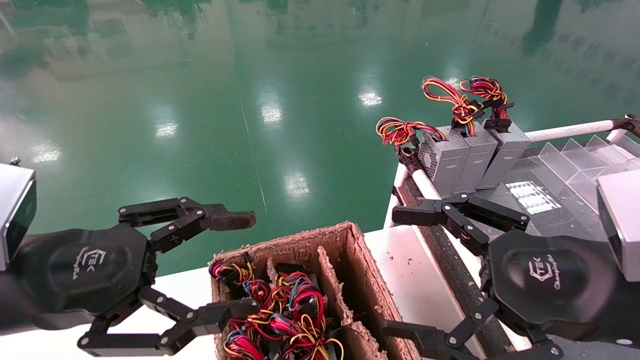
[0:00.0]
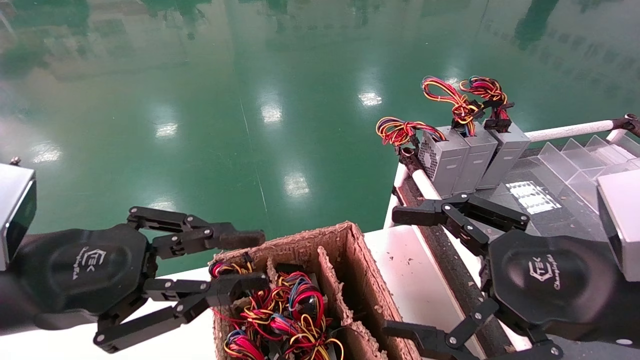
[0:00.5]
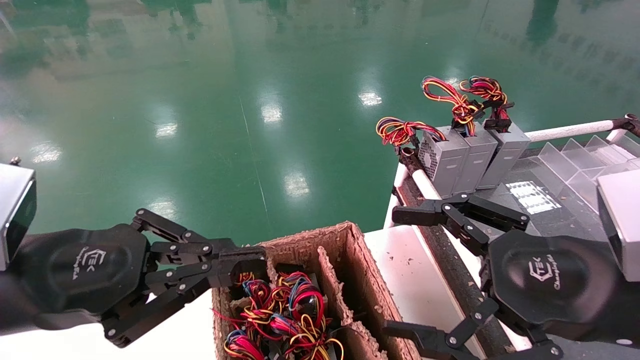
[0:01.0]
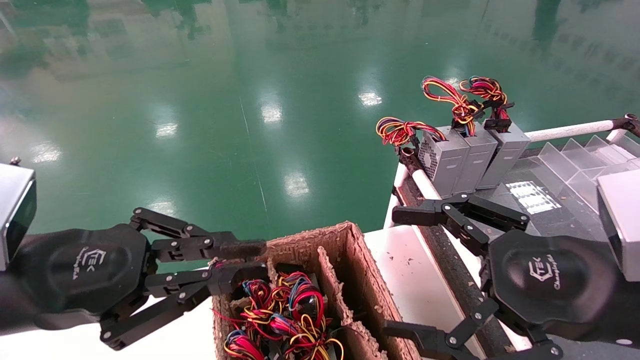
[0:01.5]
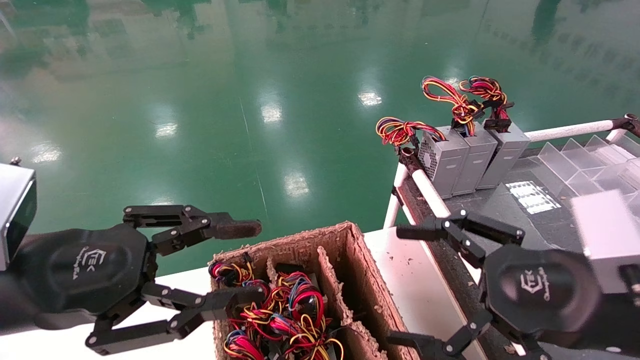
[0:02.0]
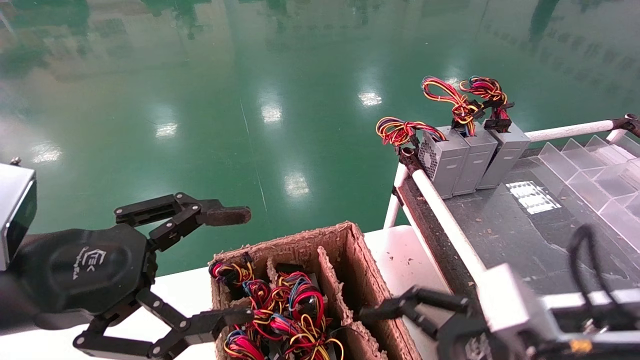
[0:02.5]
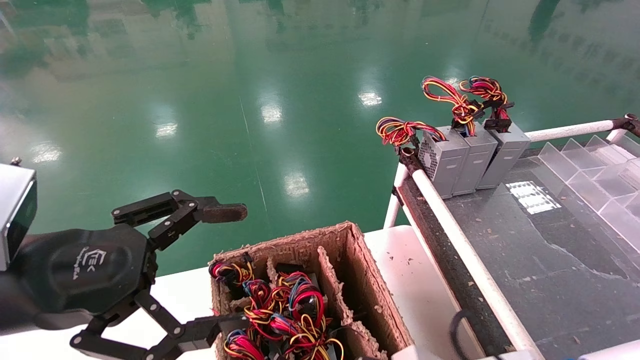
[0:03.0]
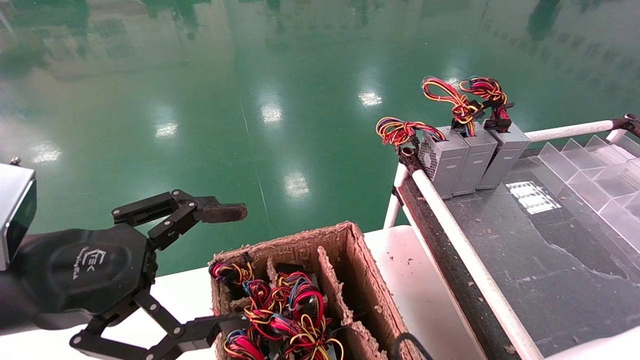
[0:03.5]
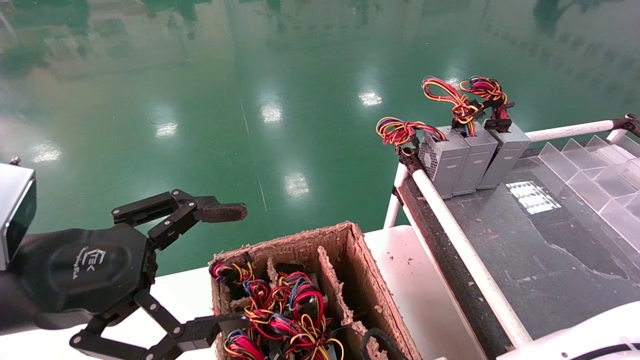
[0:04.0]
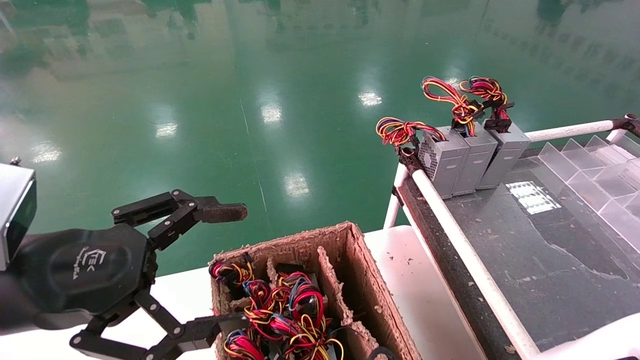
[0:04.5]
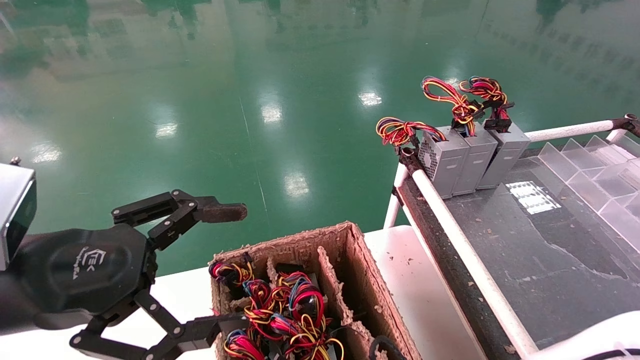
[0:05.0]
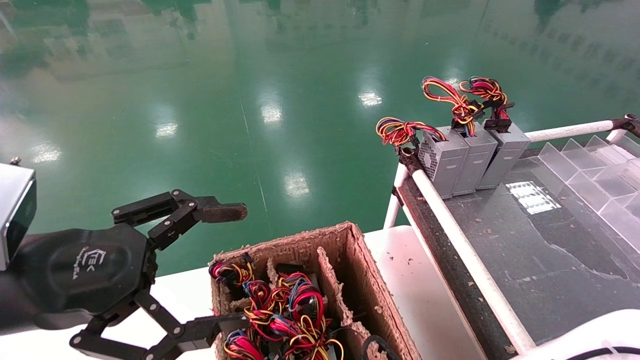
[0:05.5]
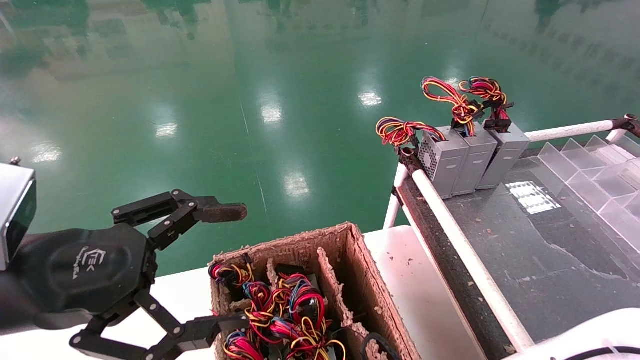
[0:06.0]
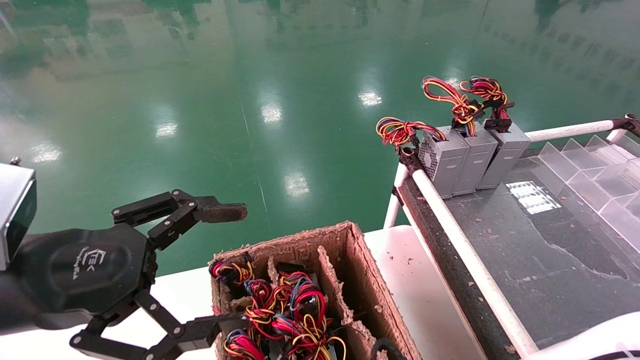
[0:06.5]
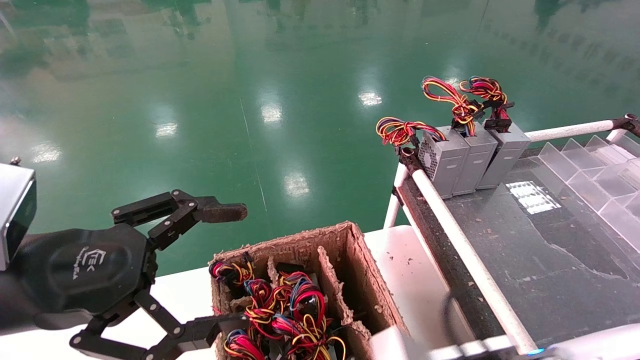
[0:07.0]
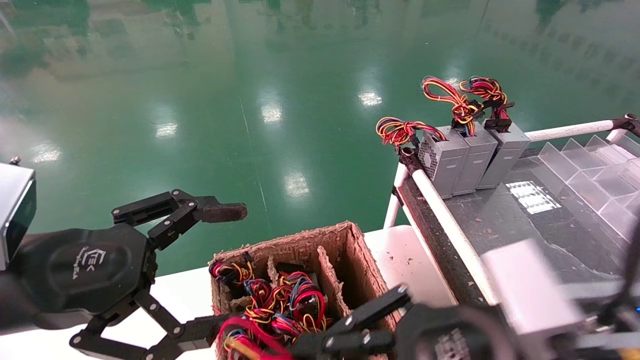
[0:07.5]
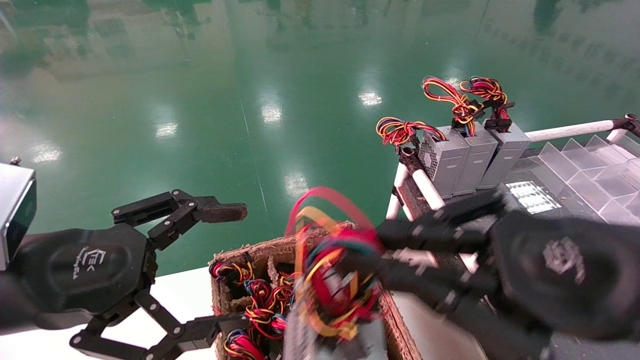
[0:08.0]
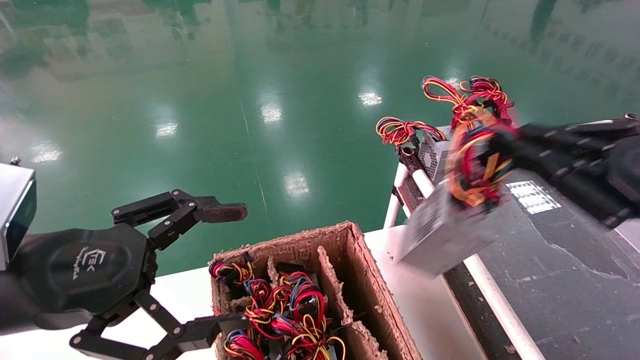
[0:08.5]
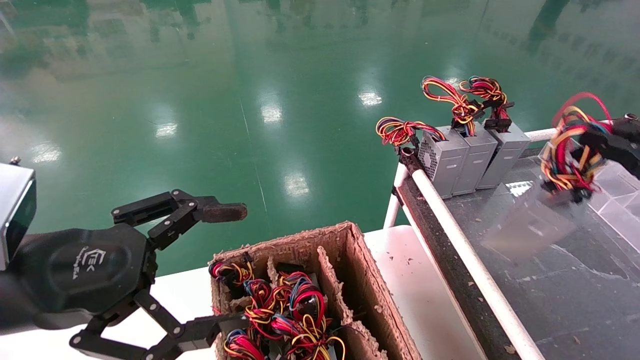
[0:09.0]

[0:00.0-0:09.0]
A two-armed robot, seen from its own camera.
Step, 0:01.0 to 0:06.5: Grab and lift the power supply from the large box.
0:00.0 to 0:02.0: The left gripper closes up.
0:02.0 to 0:04.5: The right gripper moves downward and to the left, roughly 20 cm. The left gripper opens up.
0:04.5 to 0:07.0: The right gripper goes roughly 5 cm upward, and closes up.
0:07.0 to 0:09.0: The right gripper is displaced to the right and upward by some 35 cm.

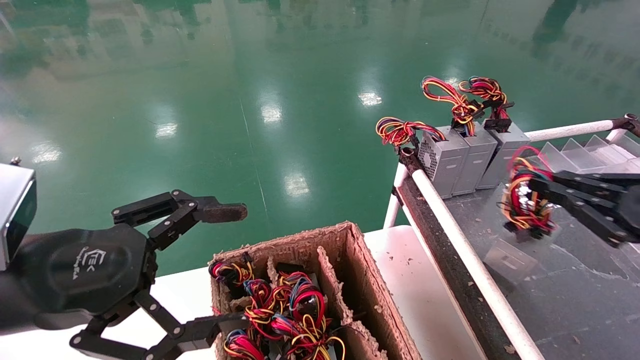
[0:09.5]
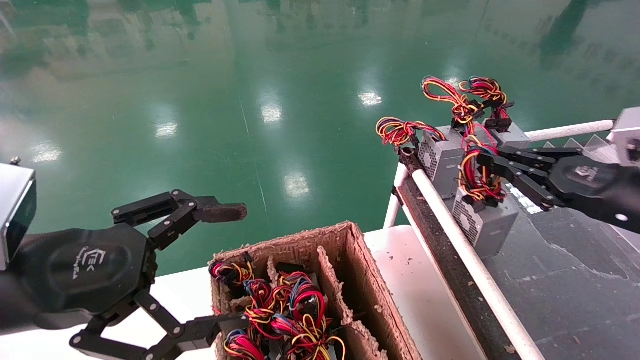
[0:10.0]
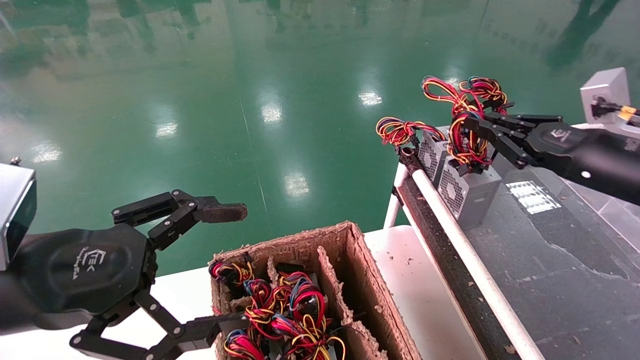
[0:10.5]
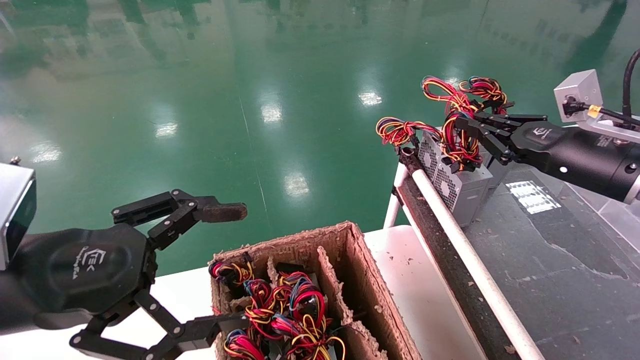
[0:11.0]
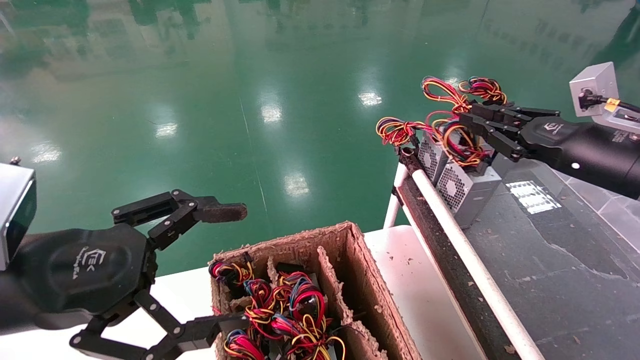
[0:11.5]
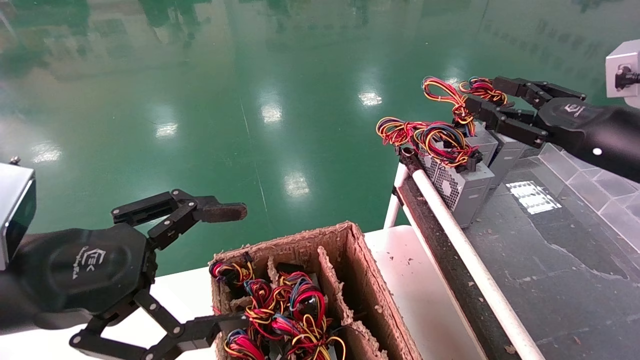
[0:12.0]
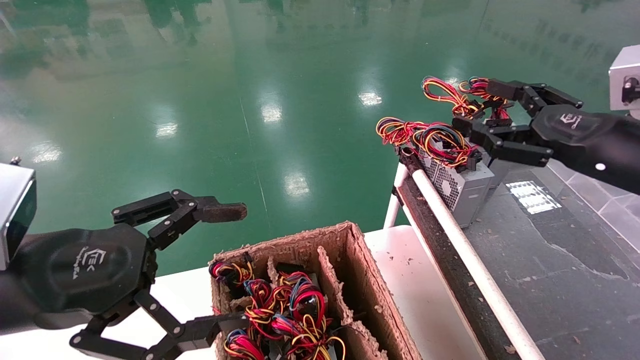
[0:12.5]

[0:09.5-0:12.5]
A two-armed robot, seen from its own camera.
0:09.5 to 0:11.0: The right gripper goes approximately 15 cm forward and to the left.
0:11.0 to 0:12.5: The right gripper shifts by about 5 cm, and opens.

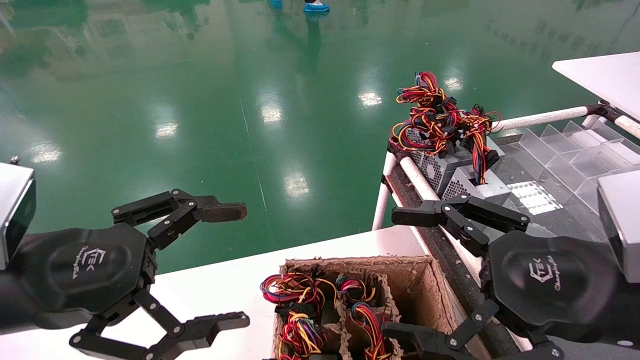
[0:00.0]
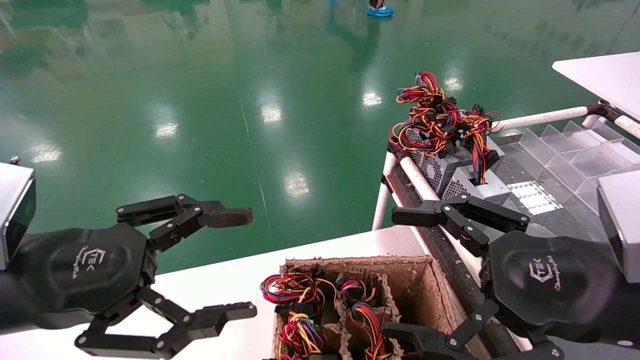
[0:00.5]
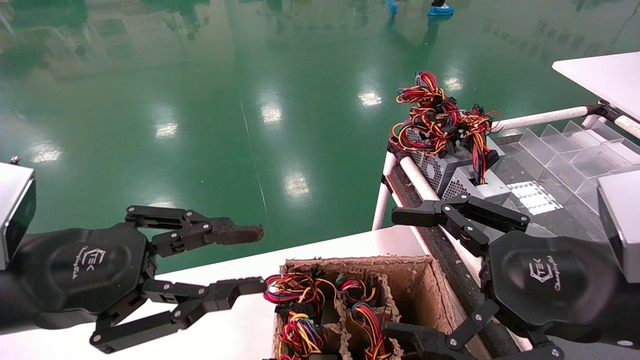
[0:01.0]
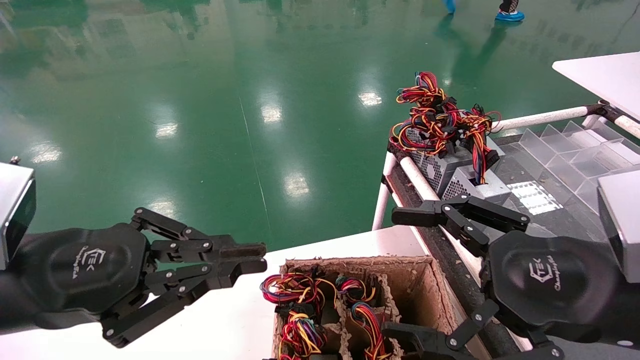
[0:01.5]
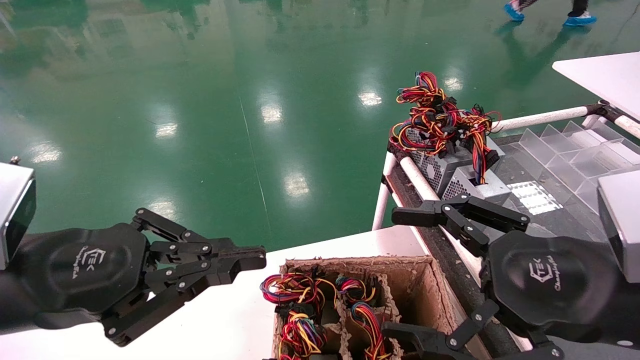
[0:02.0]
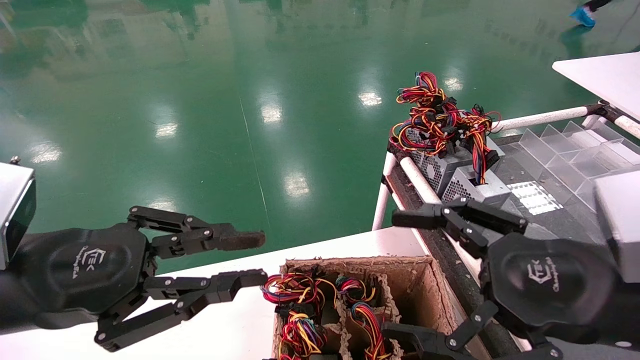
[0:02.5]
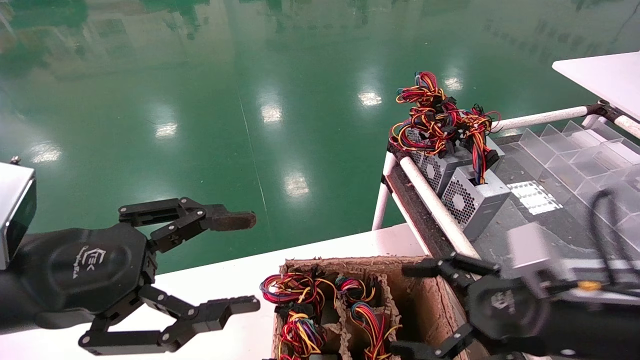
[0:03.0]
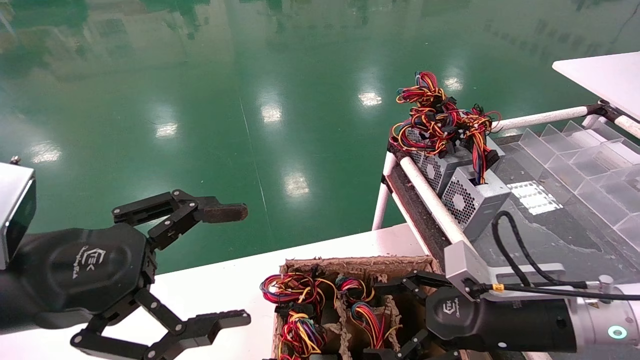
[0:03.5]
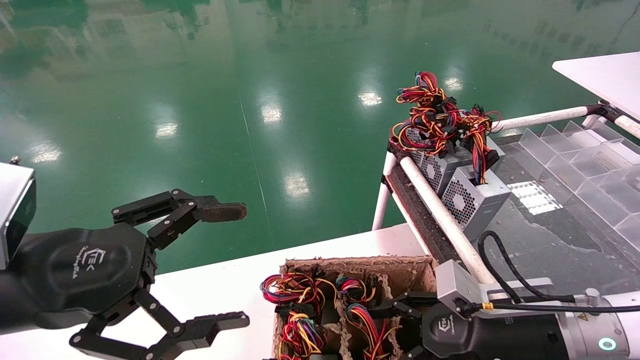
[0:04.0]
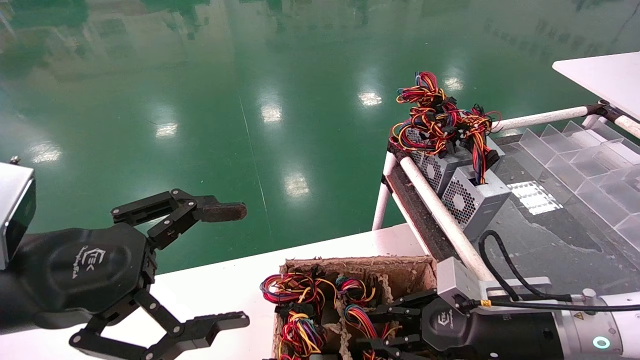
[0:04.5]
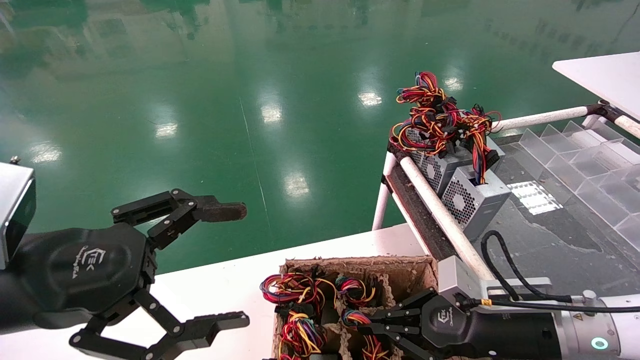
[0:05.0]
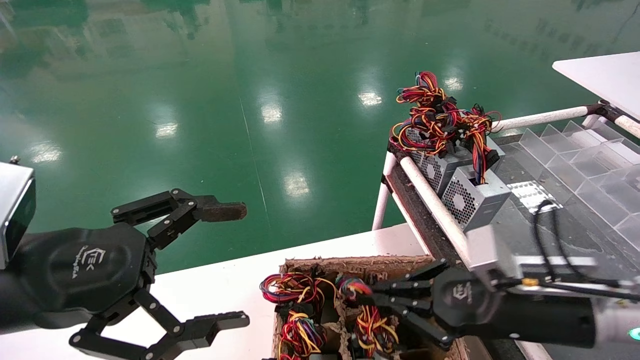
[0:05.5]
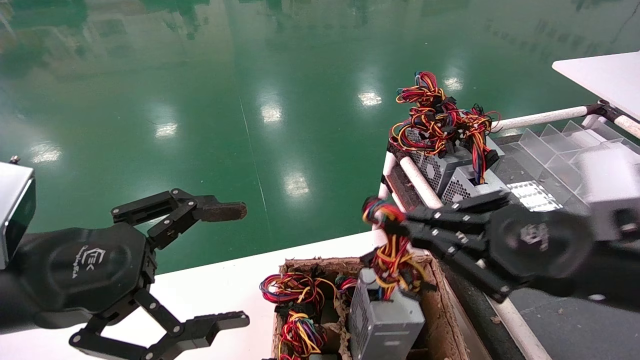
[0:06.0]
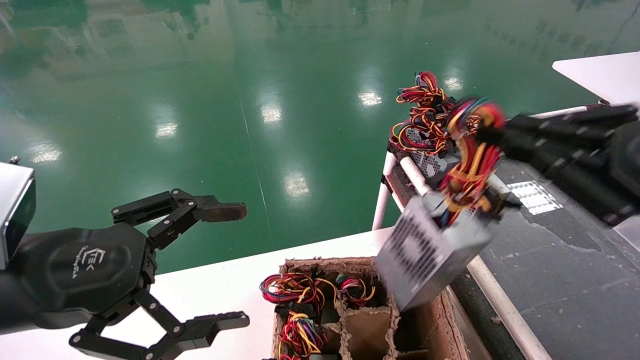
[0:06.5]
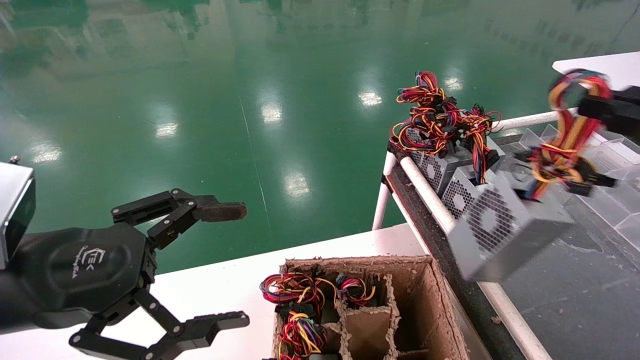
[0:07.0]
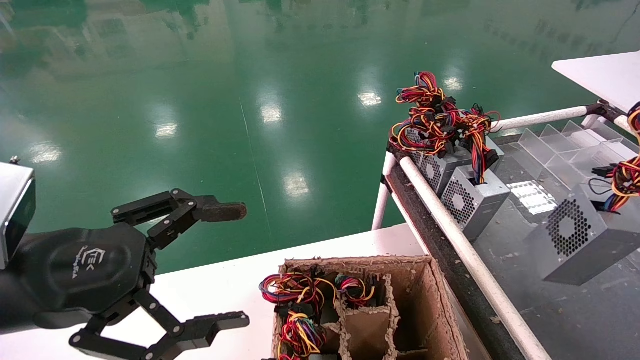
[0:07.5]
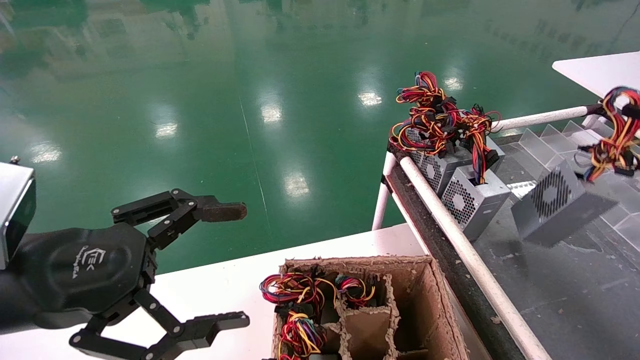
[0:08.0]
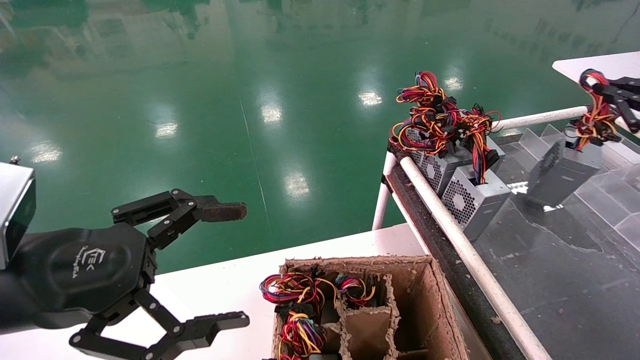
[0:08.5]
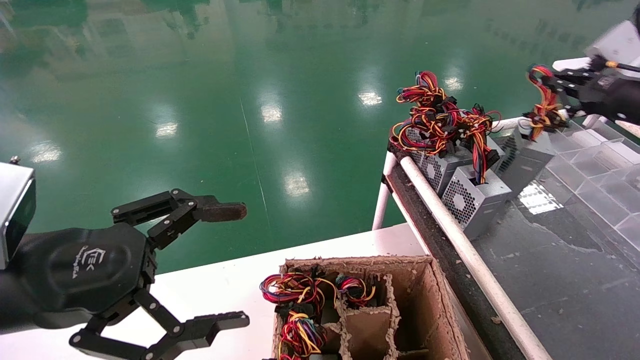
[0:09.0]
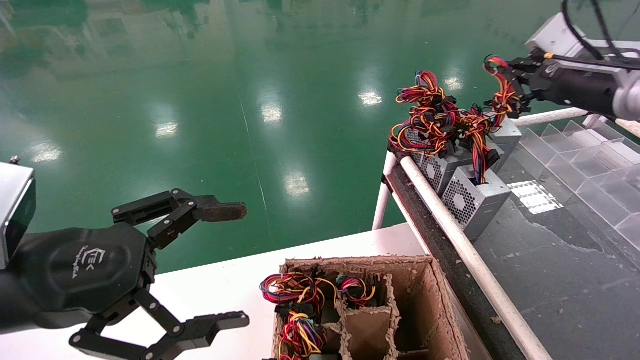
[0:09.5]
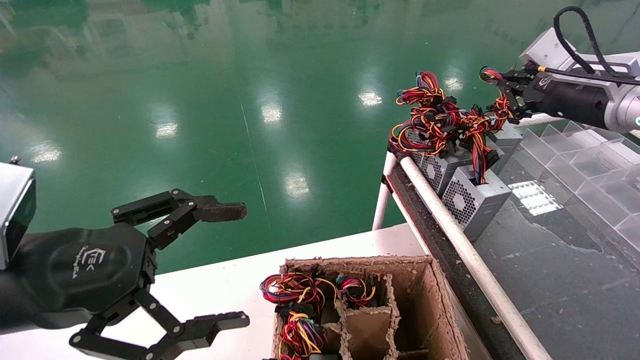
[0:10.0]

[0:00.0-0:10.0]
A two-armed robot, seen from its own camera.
Step, 0:01.5 to 0:05.0: Grab and lift the power supply from the large box.
0:00.0 to 0:02.0: The left gripper closes its fingers.
0:02.0 to 0:04.0: The right gripper moves downward and forward, about 15 cm. The left gripper opens.
0:04.0 to 0:06.0: The right gripper is displaced upward and backward by about 15 cm, and closes up.
0:06.0 to 0:08.0: The right gripper travels to the right by roughly 25 cm.
0:08.0 to 0:10.0: The right gripper goes about 20 cm forward and to the left.
